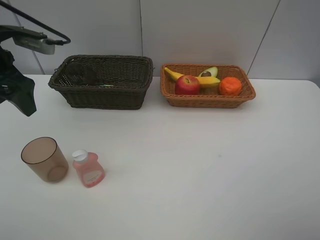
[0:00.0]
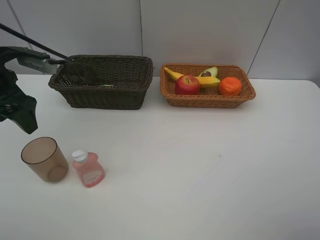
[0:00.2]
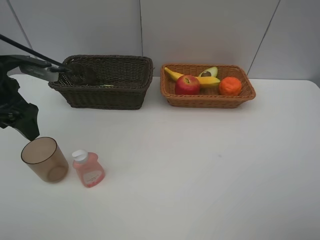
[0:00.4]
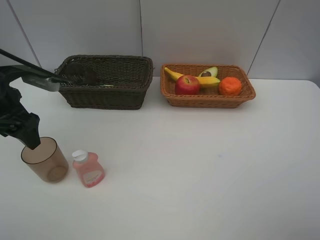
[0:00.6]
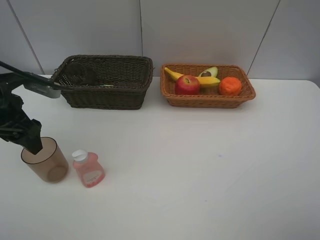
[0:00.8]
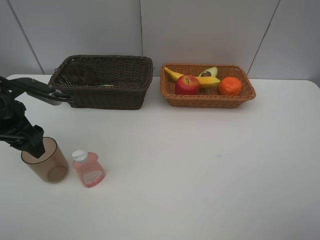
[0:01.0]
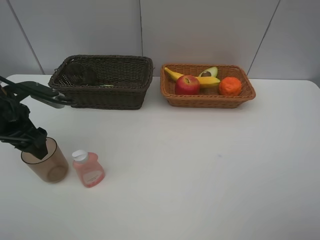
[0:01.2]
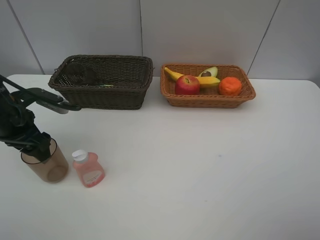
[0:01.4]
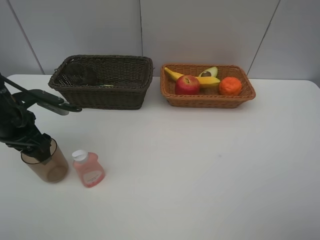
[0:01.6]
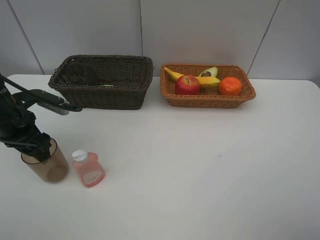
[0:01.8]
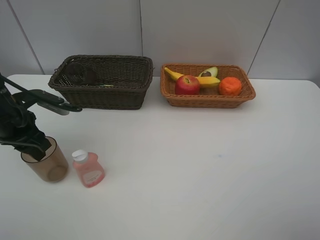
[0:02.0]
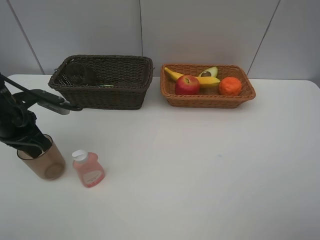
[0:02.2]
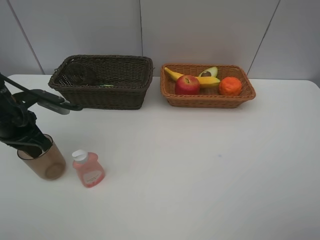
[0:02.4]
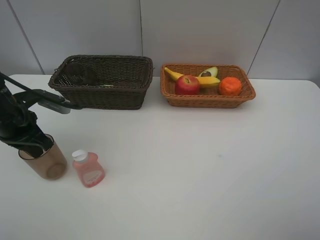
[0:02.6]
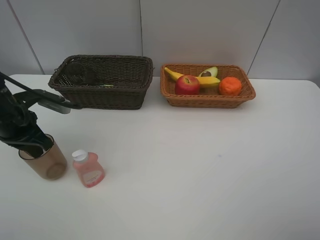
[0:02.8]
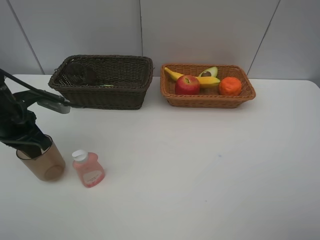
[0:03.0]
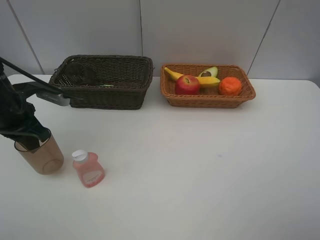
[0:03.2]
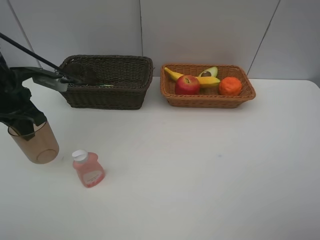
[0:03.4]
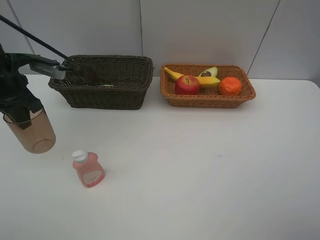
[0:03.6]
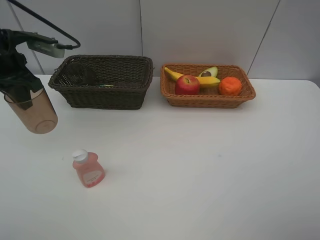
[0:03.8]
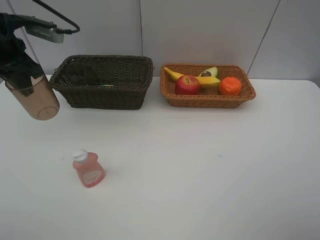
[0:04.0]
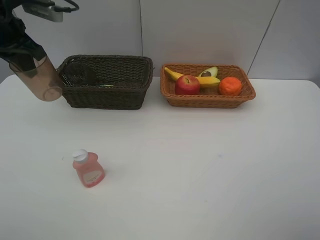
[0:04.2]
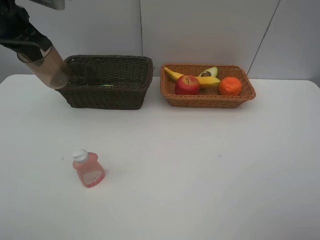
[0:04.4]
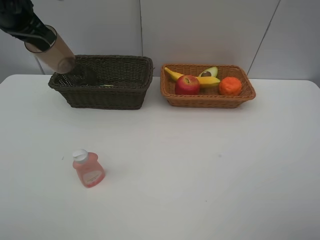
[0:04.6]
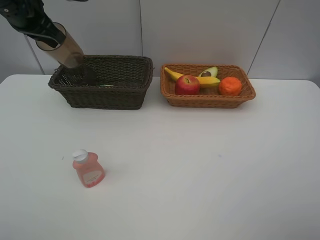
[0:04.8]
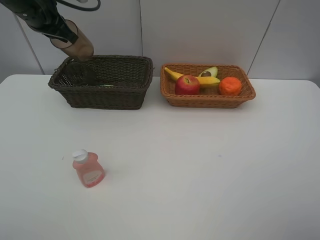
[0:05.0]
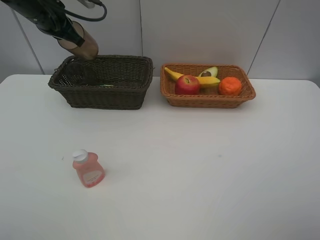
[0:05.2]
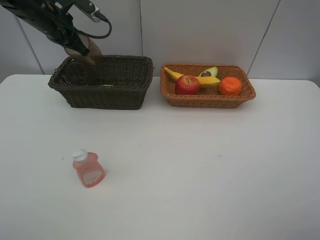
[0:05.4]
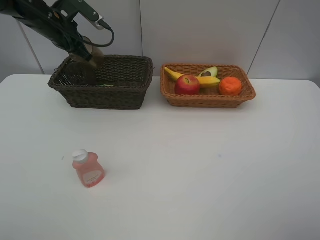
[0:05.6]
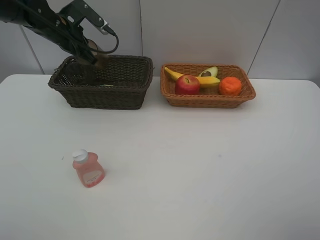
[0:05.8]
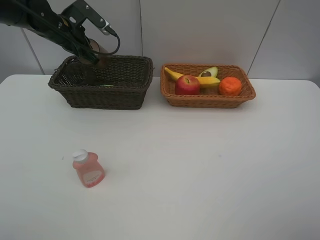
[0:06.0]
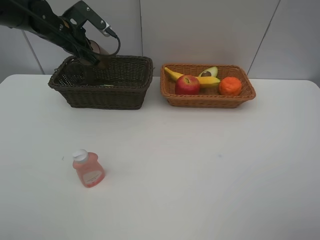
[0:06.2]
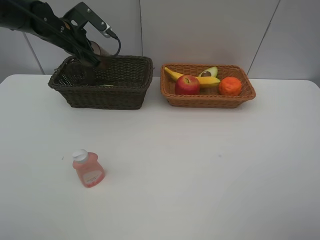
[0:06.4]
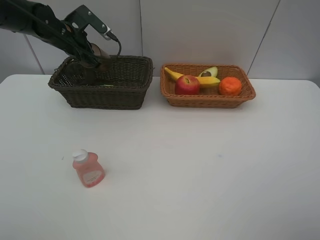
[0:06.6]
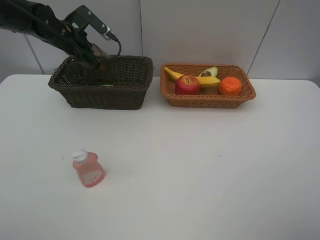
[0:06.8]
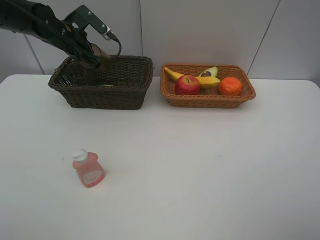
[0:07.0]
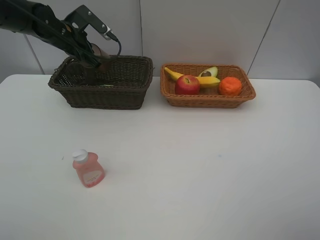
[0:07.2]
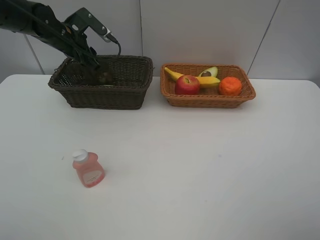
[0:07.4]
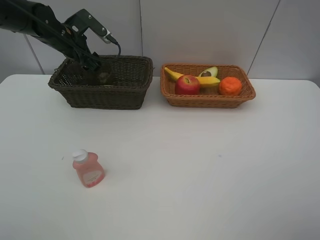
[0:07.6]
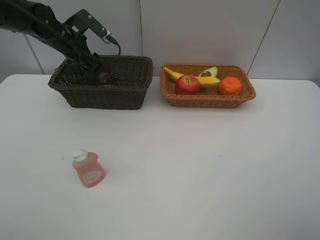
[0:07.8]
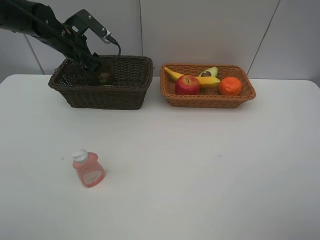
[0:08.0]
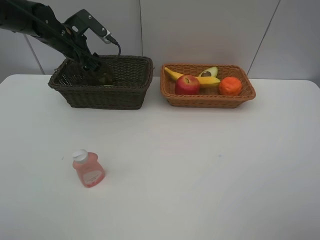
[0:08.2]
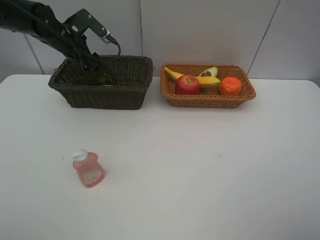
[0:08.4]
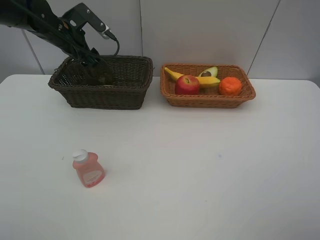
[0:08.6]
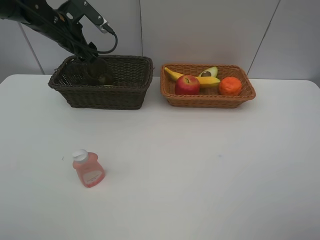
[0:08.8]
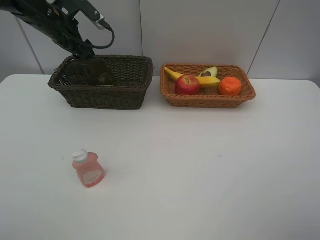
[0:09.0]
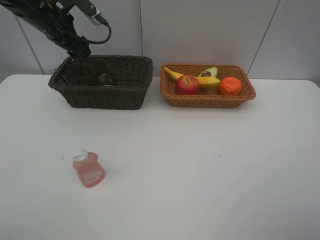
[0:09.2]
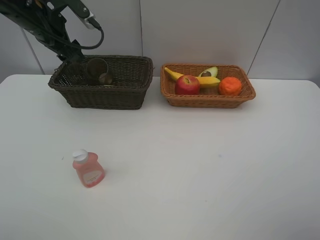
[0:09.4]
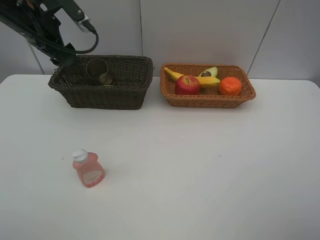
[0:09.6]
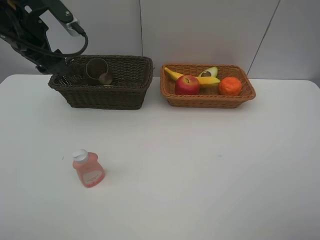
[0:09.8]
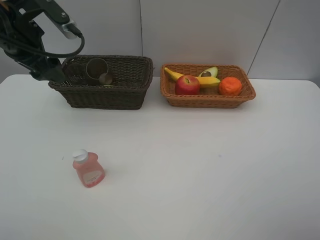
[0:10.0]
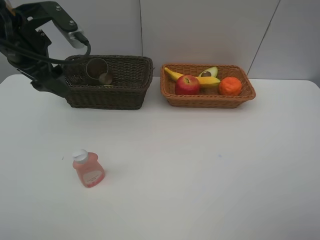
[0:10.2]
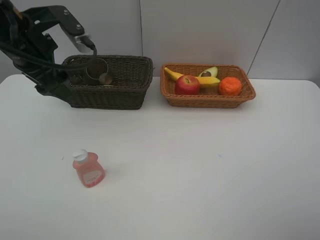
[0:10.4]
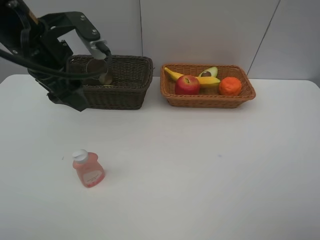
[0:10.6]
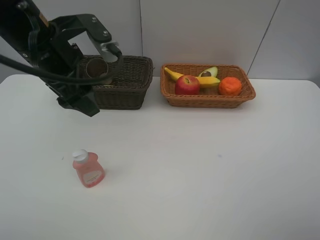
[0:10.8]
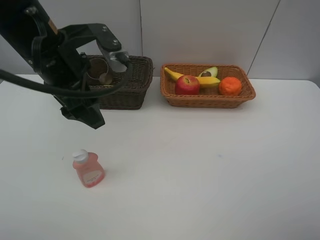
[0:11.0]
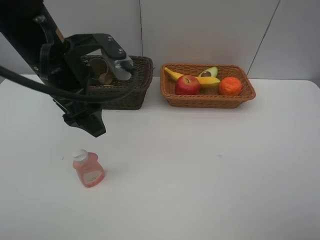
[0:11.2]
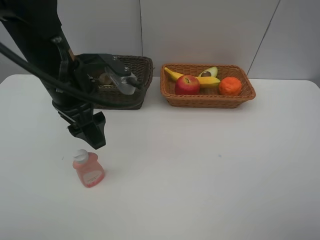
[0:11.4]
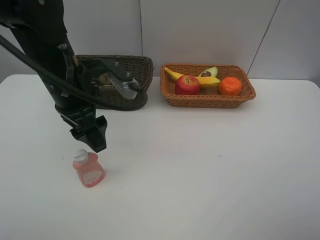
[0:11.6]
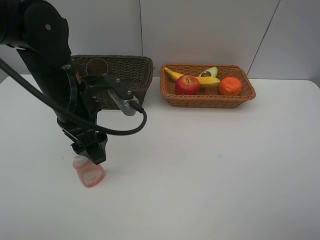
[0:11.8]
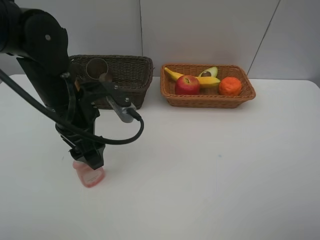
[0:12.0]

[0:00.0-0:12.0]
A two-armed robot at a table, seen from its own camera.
Task of the whole recording: Place multiple objects separately in different baskets.
Step, 0:00.0 to 0:03.2: Pick up the dark brown cup with left gripper.
Step, 0:03.4 to 0:09.0: Place the dark brown cup in the dark basket with left gripper.
0:00.0 to 0:01.6: The left gripper is displaced downward by approximately 10 cm.
0:01.6 to 0:03.0: The left gripper closes its fingers.
0:03.0 to 0:04.4: The left gripper is displaced upward and forward by about 15 cm.
0:04.4 to 0:06.0: The left gripper heads forward and downward, covering roughly 15 cm.
0:06.0 to 0:07.6: The left gripper opens.
0:07.6 to 0:09.0: The left gripper shifts by about 5 cm.
0:09.0 to 0:10.4: The left gripper heads backward, covering approximately 15 cm.
0:10.4 to 0:12.0: The left gripper is displaced downward, to the right and backward by about 10 cm.

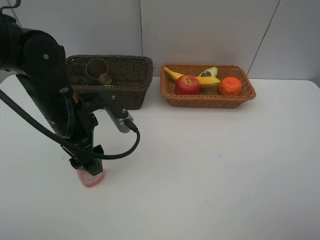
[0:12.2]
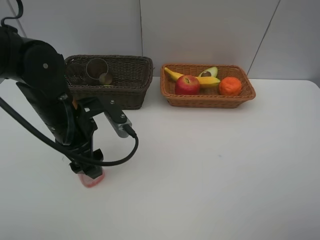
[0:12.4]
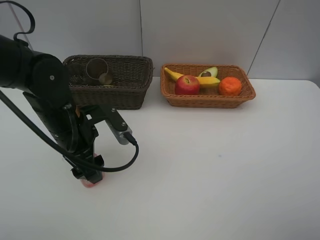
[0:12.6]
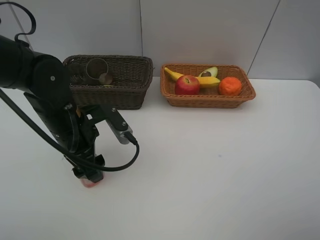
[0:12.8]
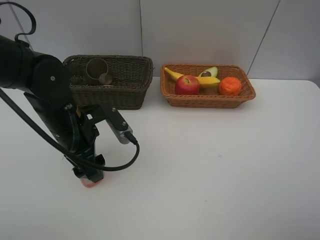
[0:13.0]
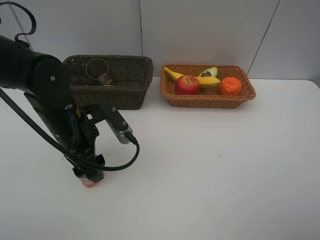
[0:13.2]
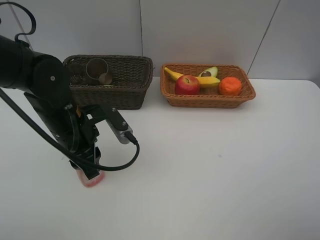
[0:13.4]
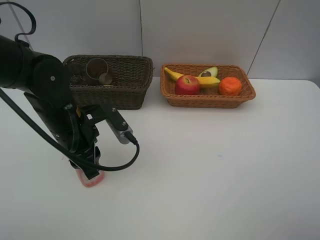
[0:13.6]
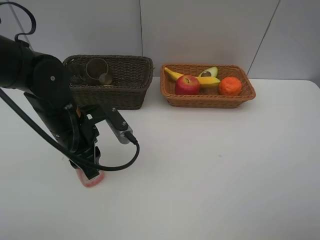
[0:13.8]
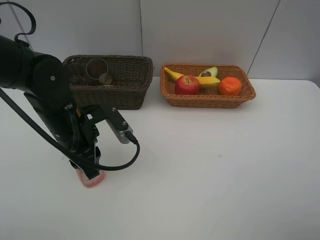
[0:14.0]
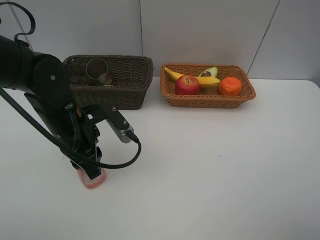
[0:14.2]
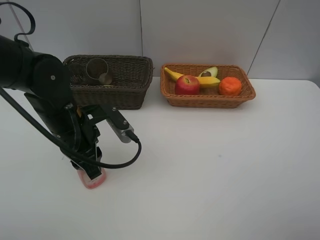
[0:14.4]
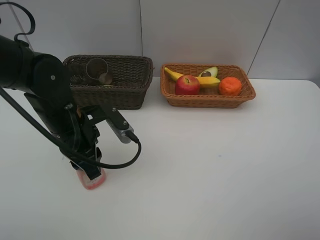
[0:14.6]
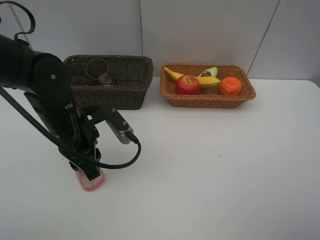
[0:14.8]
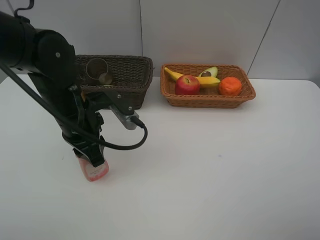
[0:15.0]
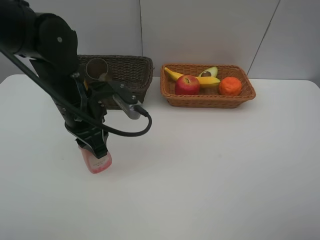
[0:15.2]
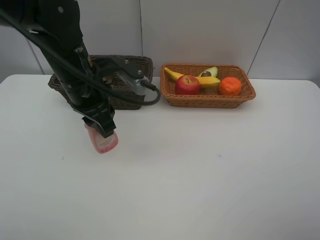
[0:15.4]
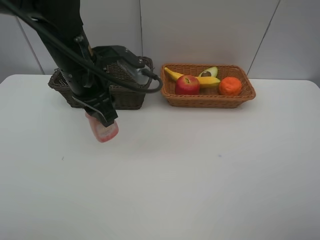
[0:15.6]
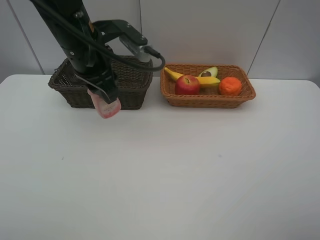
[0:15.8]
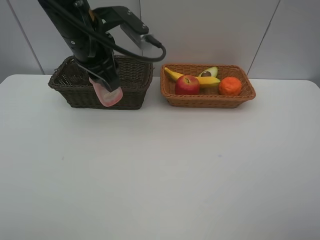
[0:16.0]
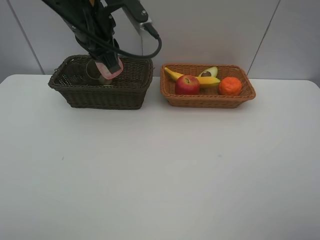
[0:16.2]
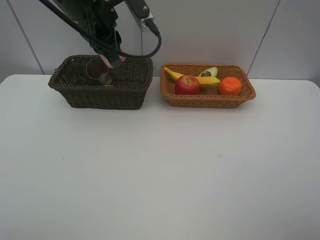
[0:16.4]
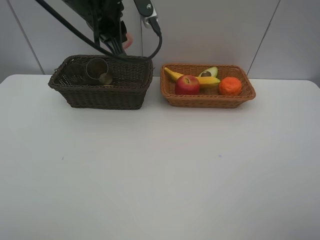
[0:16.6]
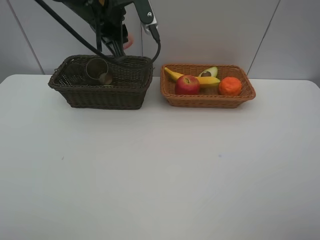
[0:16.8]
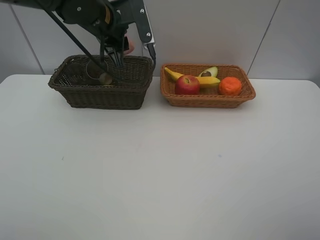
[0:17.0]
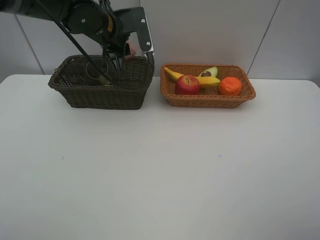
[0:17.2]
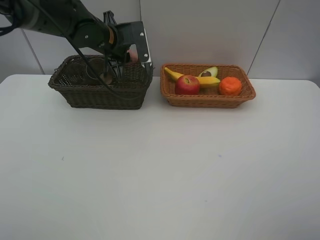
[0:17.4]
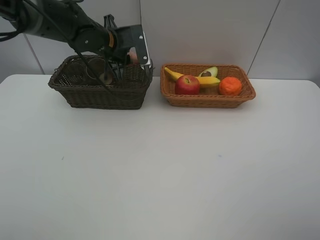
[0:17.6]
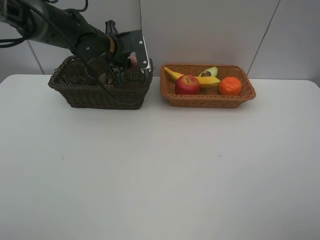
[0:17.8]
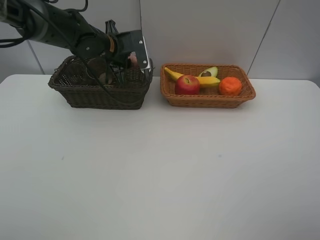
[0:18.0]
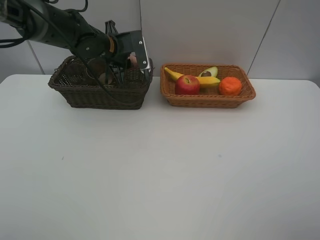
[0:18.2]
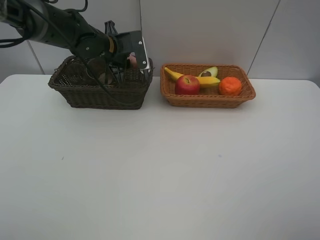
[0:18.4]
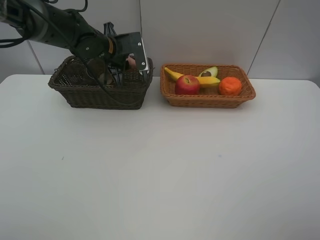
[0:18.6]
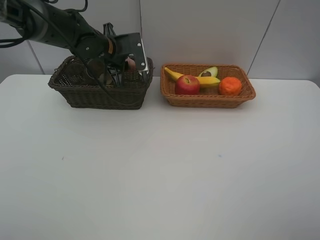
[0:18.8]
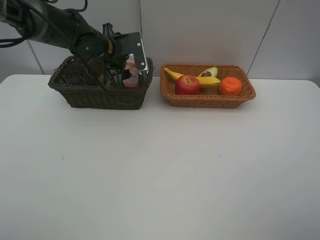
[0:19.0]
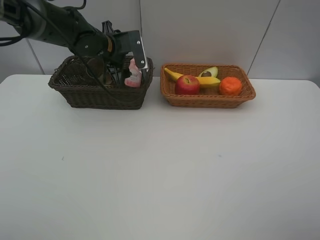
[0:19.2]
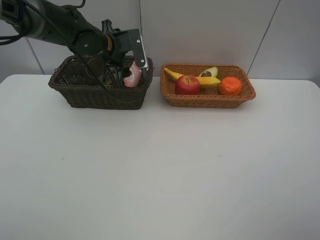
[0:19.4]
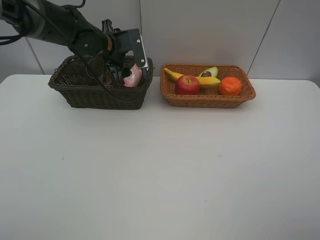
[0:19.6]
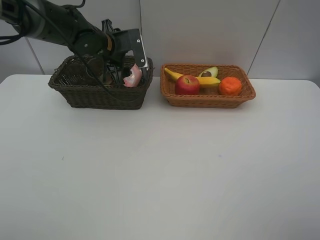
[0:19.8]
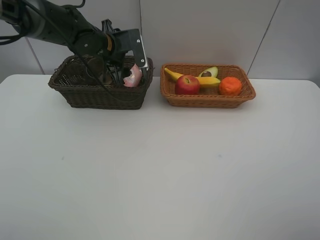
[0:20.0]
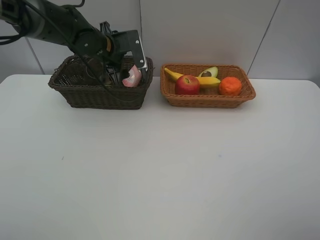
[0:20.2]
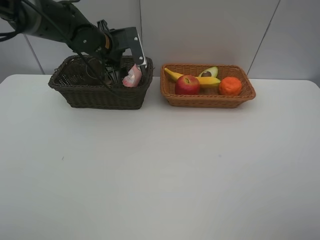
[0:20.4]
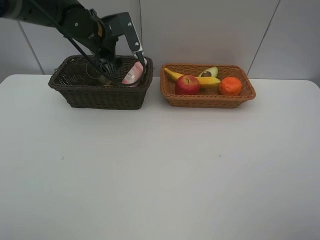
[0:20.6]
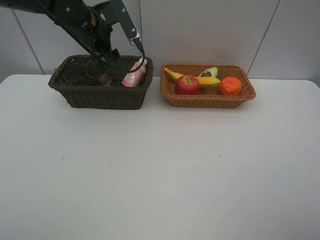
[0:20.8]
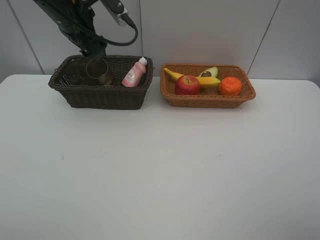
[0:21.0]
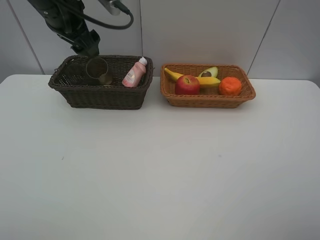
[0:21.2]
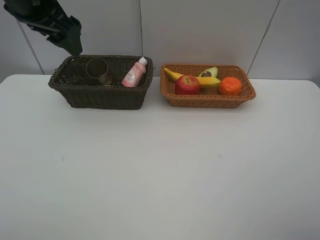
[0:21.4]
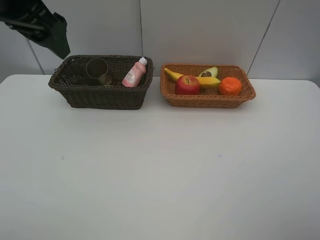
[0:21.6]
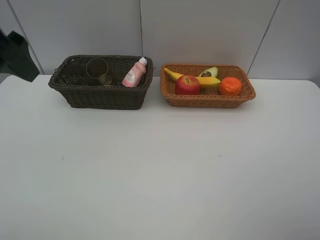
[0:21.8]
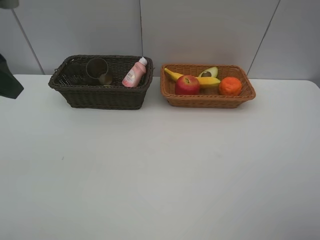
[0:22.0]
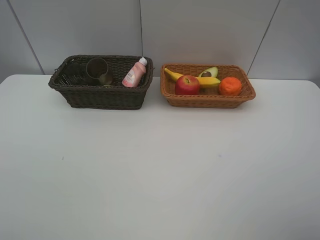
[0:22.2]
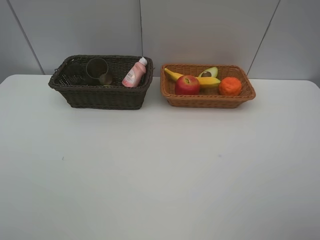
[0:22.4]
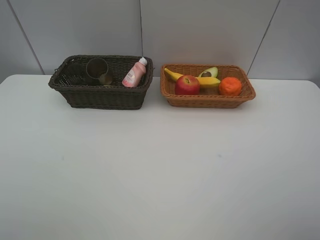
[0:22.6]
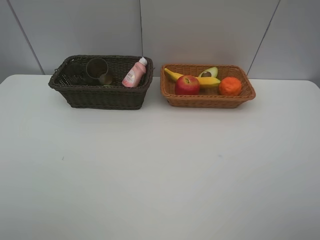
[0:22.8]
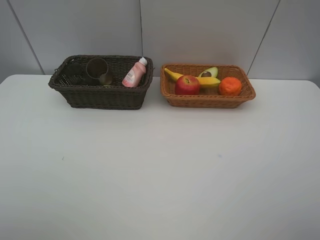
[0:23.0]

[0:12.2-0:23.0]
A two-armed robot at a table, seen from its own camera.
Task of the whole recording: Place multiple objects separately in different baskets.
Step, 0:12.2 to 0:15.2: Pick up the laundry detergent with left gripper.
Step, 0:15.4 to 0:19.6: Place the laundry detergent in the dark basket with left gripper.
0:12.2 to 0:13.8: The left gripper closes up.
0:13.8 to 0:15.2: The left gripper ends up about 5 cm from where it was.
0:15.2 to 0:16.8: The left gripper shifts some 15 cm forward and upward.
0:16.8 to 0:18.4: The left gripper moves downward and forward, about 10 cm.
0:18.4 to 0:20.0: The left gripper opens its fingers.
0:20.0 to 0:21.4: The left gripper travels upward and backward by some 20 cm.
0:21.4 to 0:23.0: The left gripper is displaced backward by about 25 cm.
